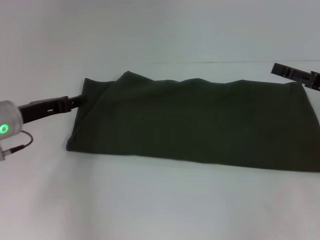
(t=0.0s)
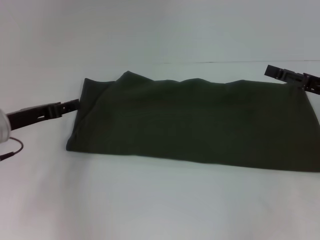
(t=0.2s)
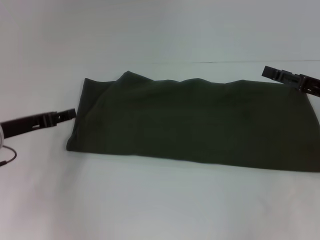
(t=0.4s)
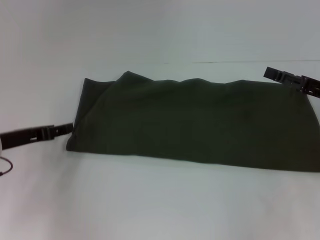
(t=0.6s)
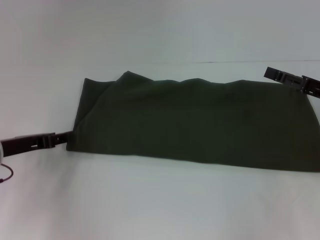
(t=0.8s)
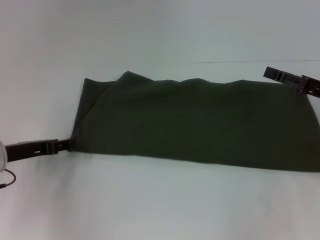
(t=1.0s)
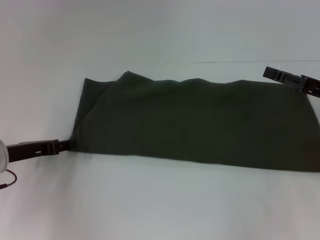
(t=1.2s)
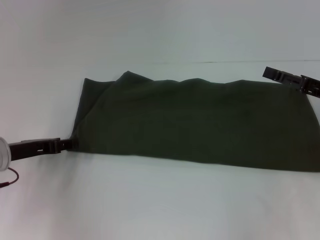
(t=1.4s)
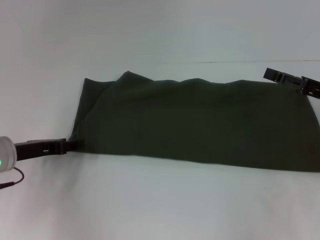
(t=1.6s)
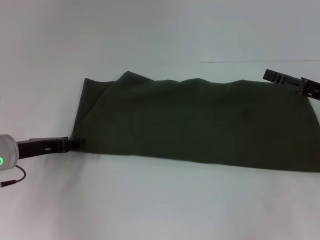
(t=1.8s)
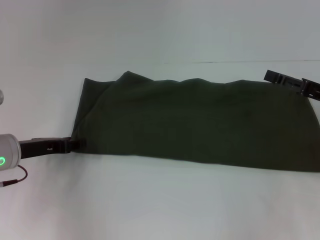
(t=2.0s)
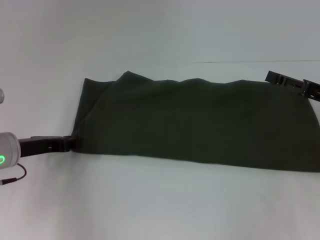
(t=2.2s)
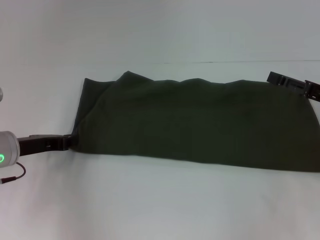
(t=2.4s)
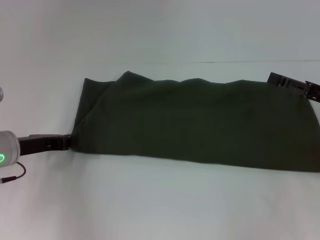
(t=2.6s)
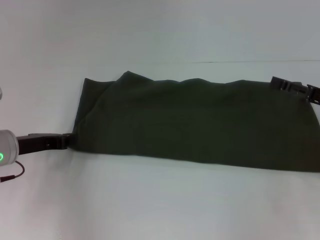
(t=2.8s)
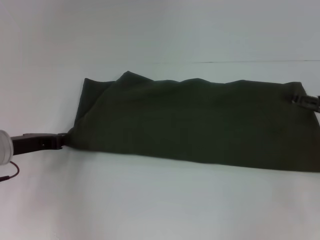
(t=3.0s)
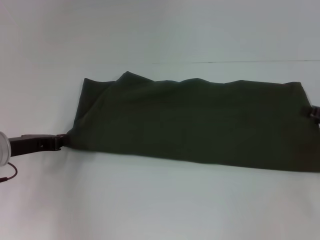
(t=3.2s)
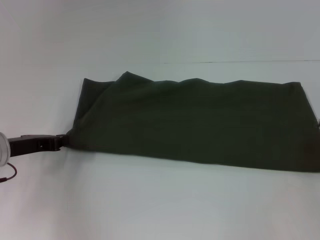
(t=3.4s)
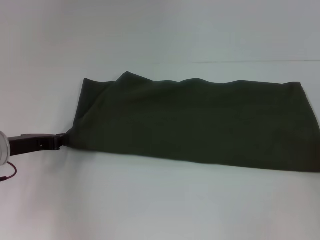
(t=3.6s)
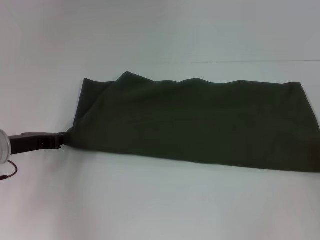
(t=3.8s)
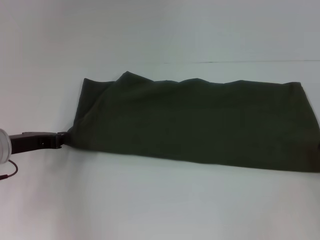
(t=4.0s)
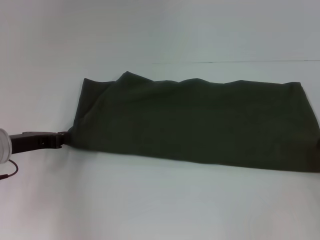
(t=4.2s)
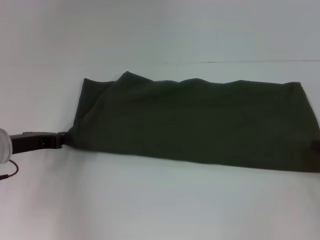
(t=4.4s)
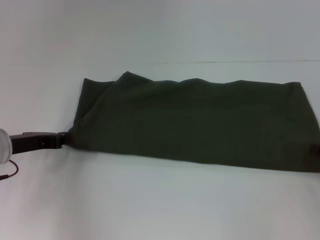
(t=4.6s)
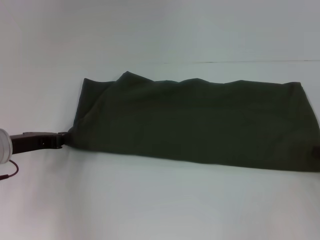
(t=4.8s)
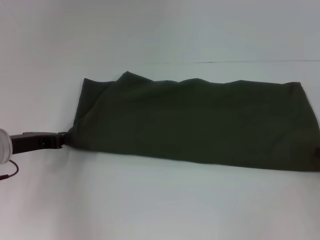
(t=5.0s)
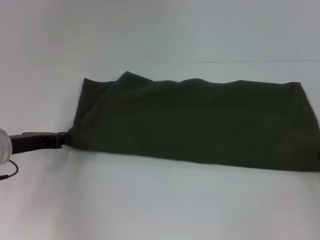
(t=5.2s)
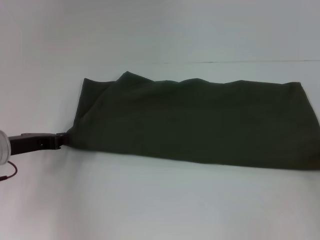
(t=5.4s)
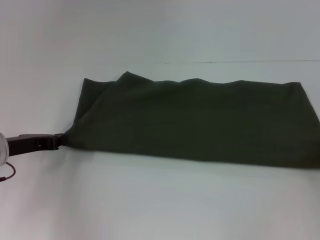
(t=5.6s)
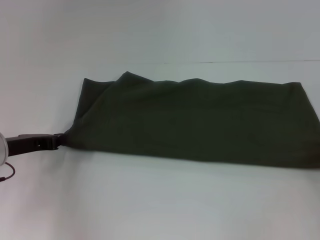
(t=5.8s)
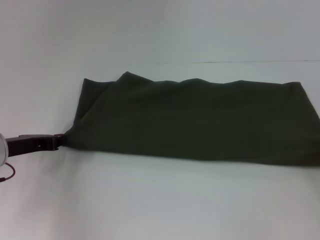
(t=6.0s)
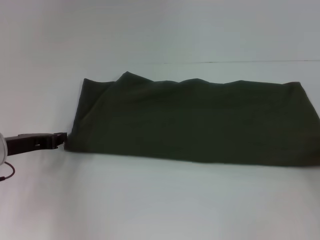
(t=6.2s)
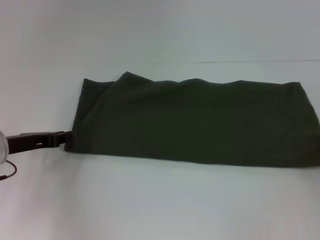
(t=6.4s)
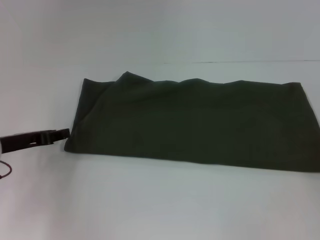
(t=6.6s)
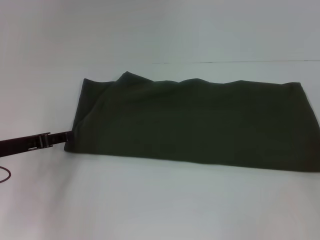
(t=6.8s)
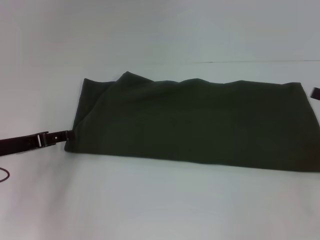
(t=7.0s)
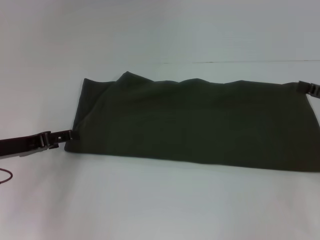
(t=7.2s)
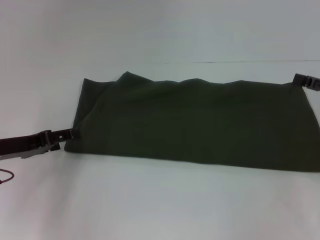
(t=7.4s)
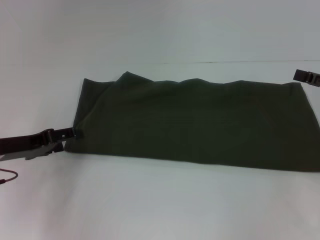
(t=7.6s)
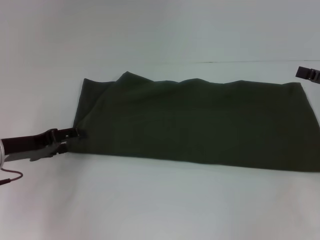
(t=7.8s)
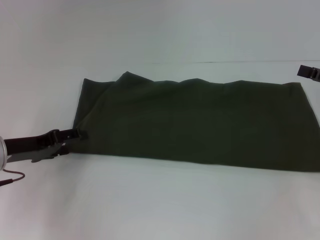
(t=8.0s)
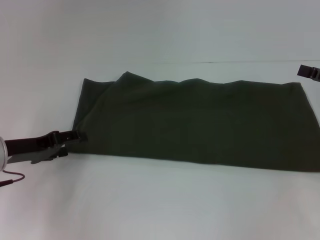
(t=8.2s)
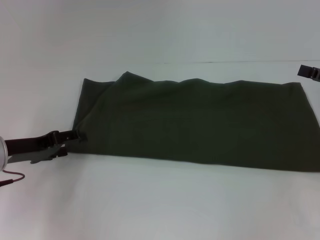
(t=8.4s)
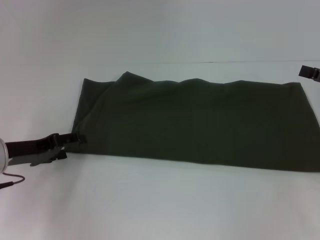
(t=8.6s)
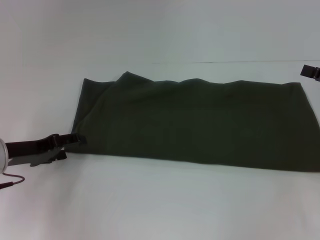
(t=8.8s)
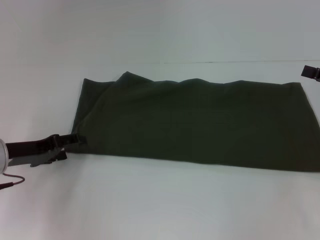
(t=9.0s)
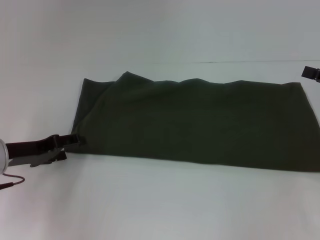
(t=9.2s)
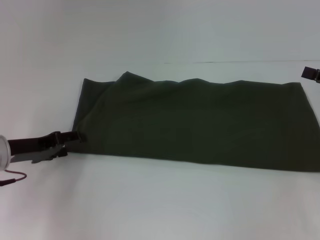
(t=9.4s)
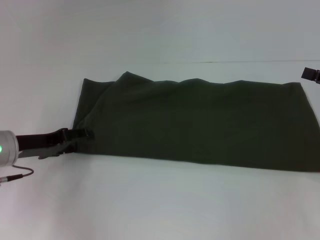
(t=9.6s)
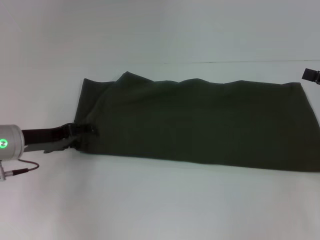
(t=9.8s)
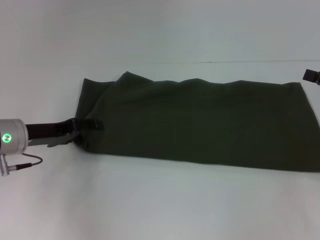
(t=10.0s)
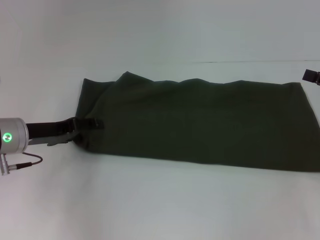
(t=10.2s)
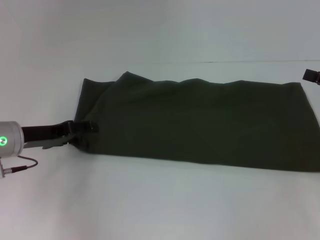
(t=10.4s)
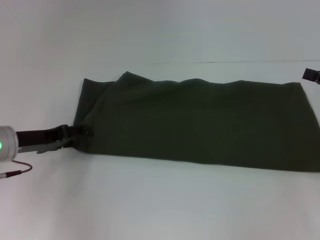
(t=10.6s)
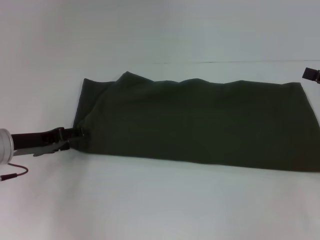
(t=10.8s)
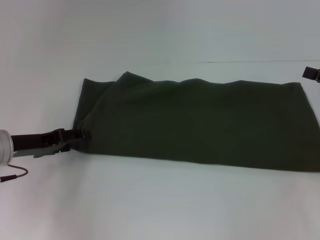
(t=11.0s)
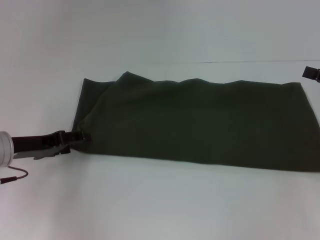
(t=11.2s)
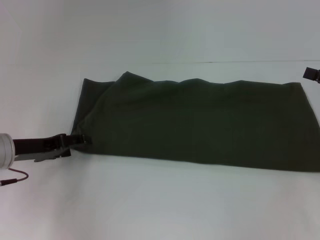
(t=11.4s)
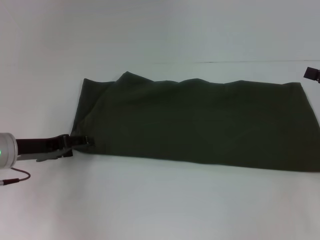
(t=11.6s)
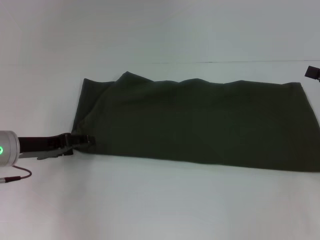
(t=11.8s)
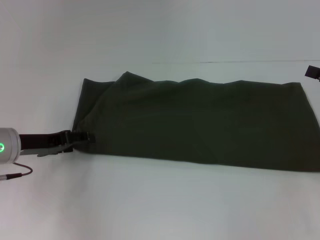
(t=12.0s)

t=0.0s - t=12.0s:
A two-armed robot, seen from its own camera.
t=0.0s - t=1.6s: There are only small adjustments of the grippers.
t=1.6s - t=3.0s: The left gripper closes up.
t=4.4s - t=6.0s: The right gripper closes its fingers.
t=6.0s - t=7.6s: The right gripper shifts approximately 10 cm upward and forward, and opens up. Meanwhile the left gripper opens its fingers.
t=7.6s - t=12.0s: The grippers stay close to where they were, moving slightly.

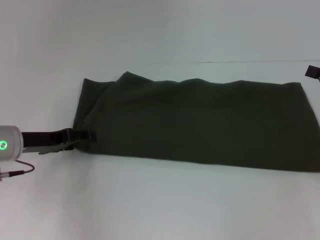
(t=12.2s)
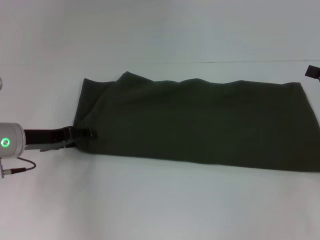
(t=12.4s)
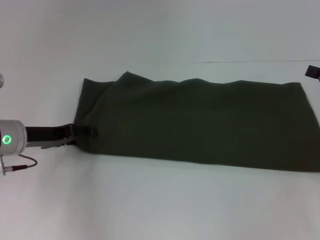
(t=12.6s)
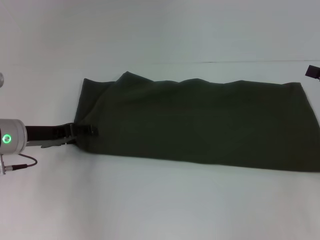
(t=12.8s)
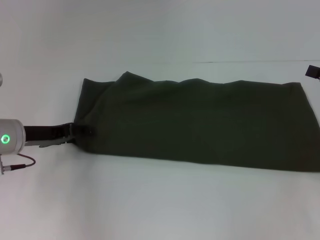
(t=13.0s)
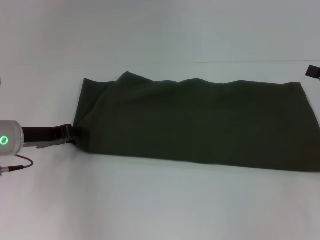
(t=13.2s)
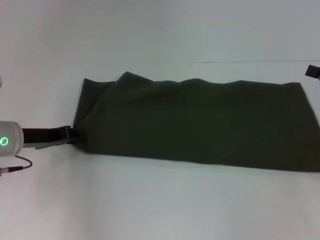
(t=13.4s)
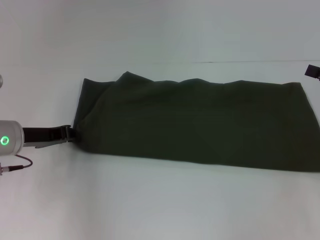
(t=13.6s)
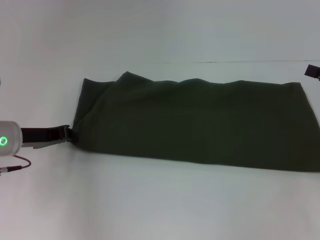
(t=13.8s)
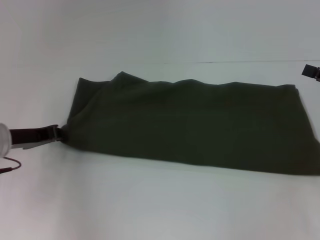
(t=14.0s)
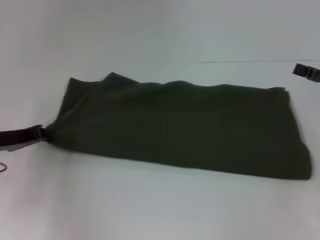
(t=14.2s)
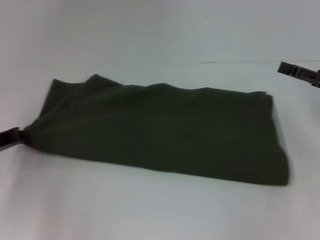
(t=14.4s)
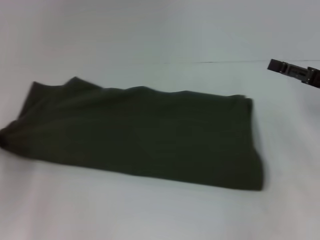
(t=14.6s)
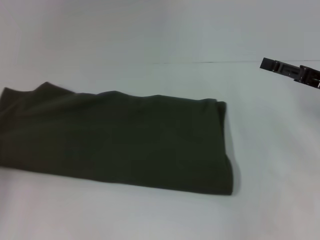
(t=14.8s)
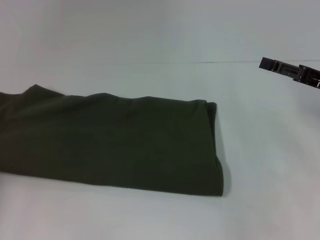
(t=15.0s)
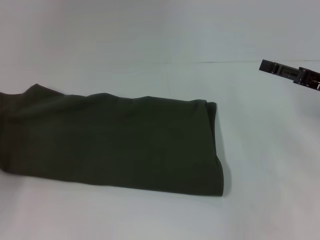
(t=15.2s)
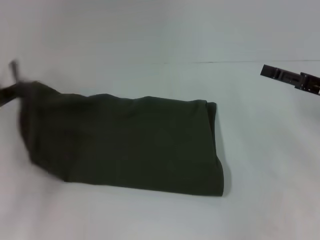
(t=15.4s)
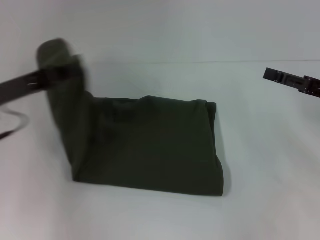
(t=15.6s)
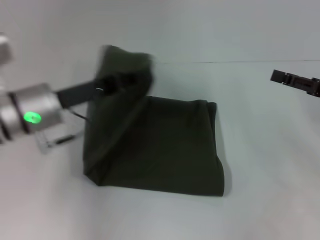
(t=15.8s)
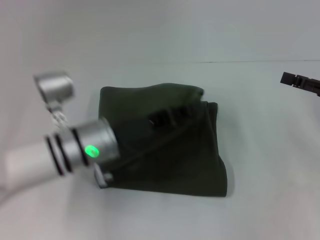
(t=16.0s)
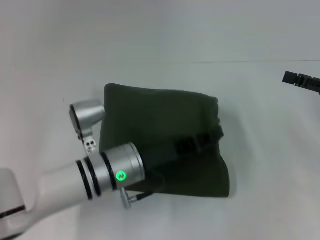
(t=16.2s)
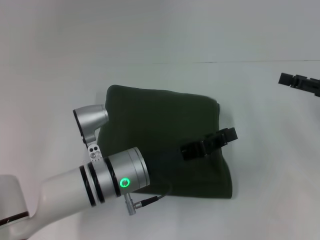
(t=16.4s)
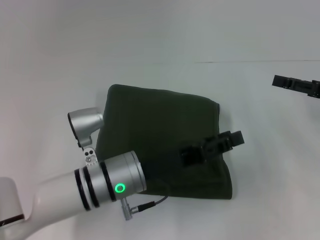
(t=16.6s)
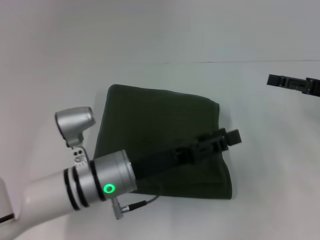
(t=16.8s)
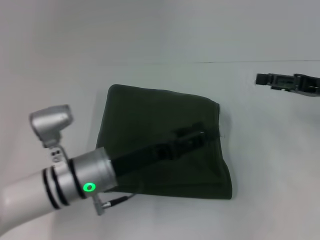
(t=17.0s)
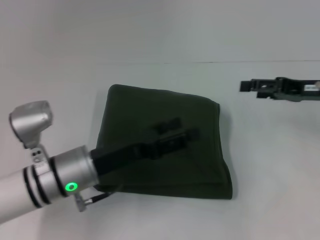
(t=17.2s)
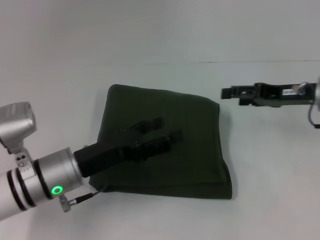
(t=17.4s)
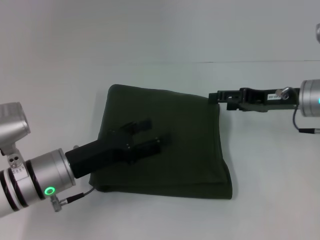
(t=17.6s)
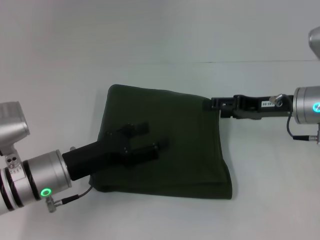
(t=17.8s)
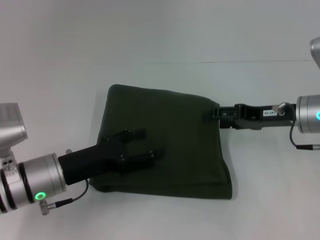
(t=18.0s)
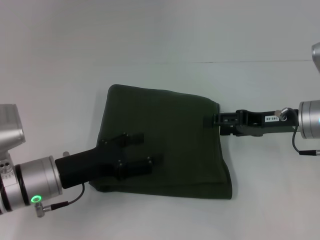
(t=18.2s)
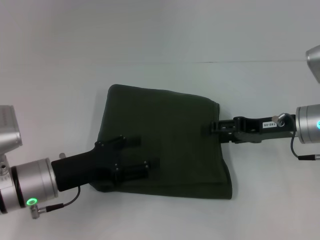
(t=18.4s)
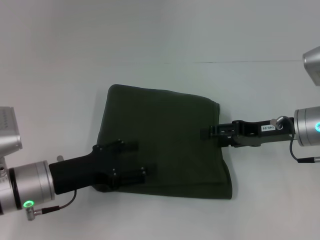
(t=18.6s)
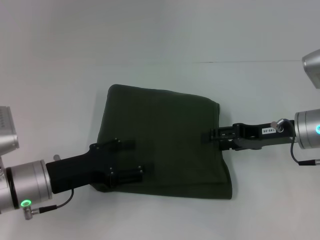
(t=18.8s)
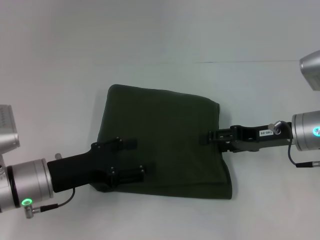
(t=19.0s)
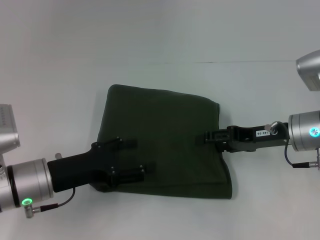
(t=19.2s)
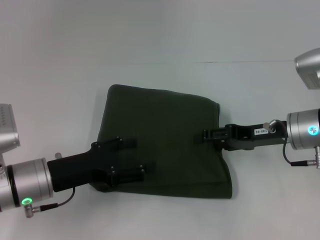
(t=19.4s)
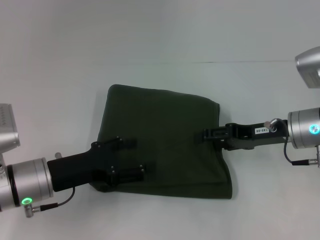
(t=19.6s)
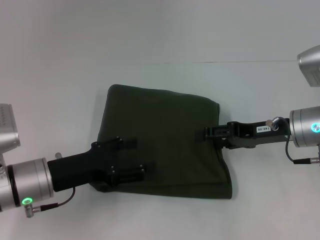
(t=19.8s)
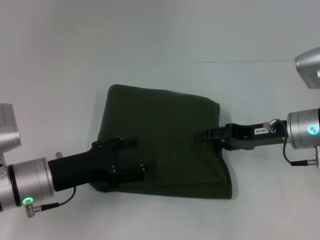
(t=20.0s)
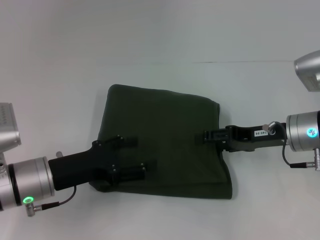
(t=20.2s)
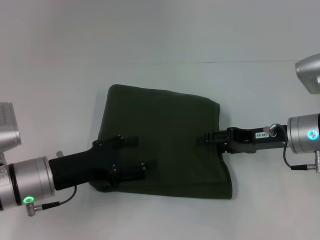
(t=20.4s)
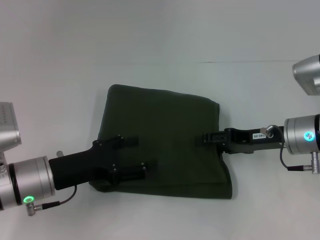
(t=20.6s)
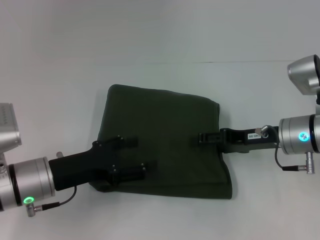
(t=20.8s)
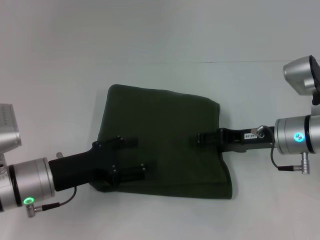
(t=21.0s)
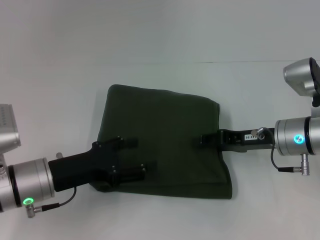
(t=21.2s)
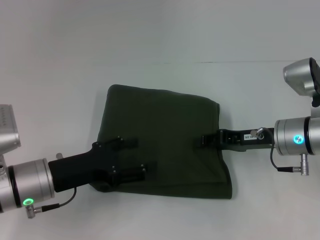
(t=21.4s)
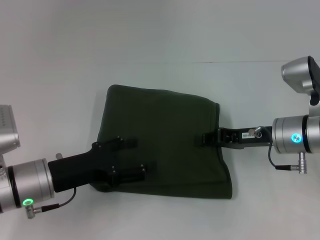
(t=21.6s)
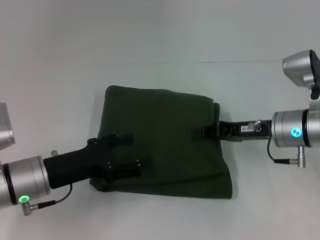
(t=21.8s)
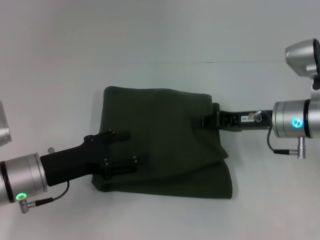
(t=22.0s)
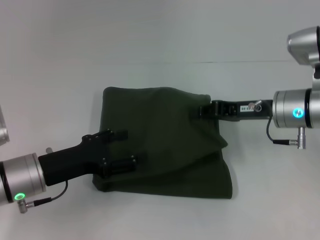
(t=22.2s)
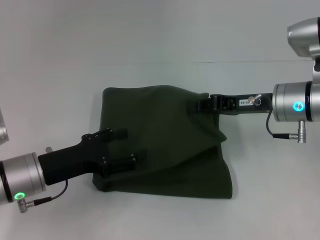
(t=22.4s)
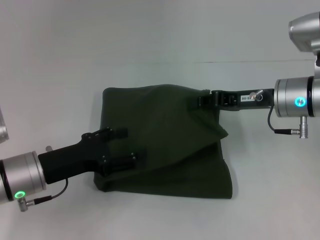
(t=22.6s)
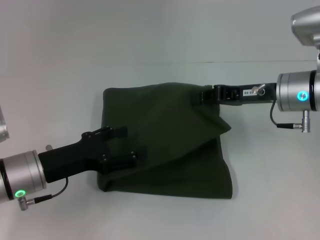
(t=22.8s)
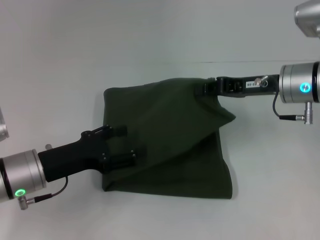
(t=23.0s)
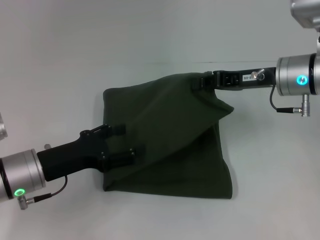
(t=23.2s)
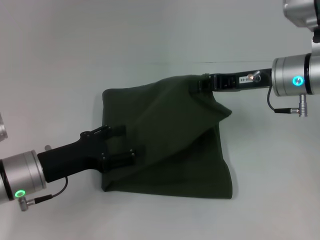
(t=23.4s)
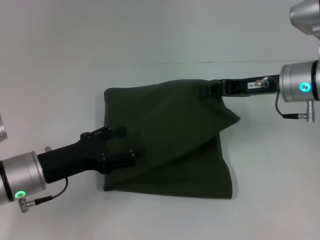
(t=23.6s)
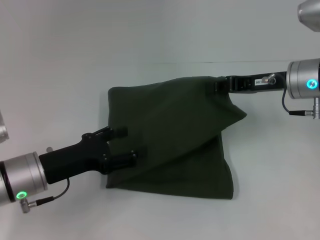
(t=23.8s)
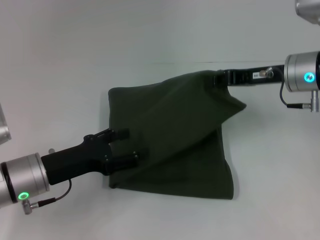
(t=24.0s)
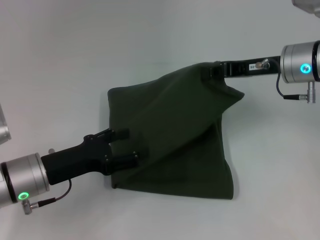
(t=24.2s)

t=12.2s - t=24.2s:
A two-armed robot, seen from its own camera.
t=12.2s - t=13.8s: The left gripper closes.
t=13.8s - t=15.2s: The left gripper shifts roughly 15 cm to the left and backward. The right gripper shifts some 5 cm to the left.
t=15.2s - t=16.6s: The left gripper travels to the right by about 30 cm.
t=16.6s - t=18.2s: The two grippers go some 10 cm to the left. The left gripper opens.
t=18.2s - t=21.2s: The grippers stay close to where they were, moving slightly.
t=21.2s - t=22.6s: The right gripper is displaced upward by about 5 cm, and closes its fingers.
t=22.6s - t=24.2s: The grippers move only a little.
